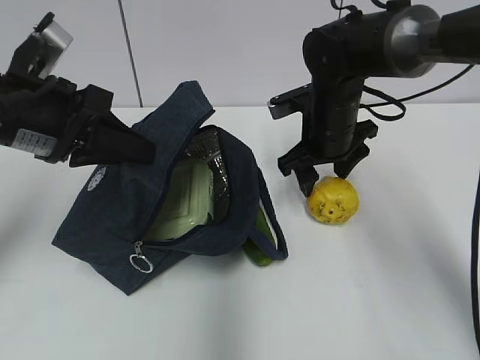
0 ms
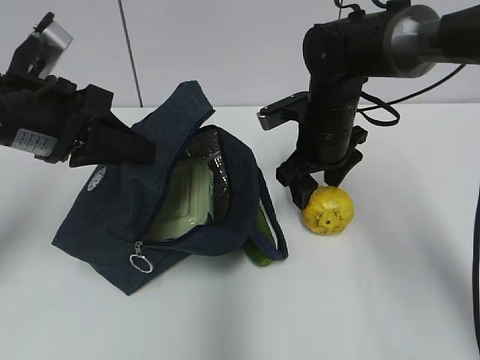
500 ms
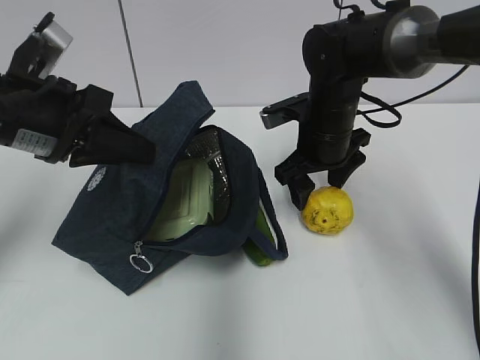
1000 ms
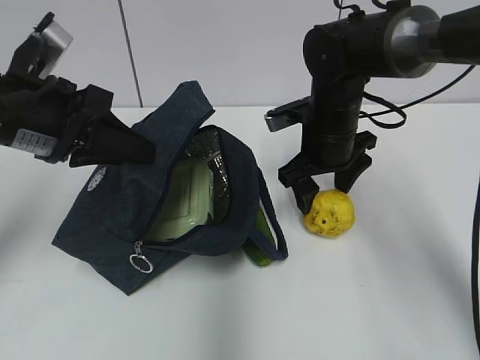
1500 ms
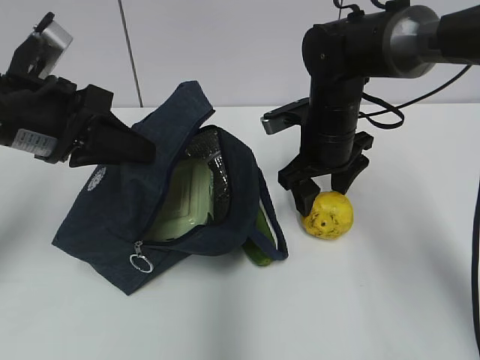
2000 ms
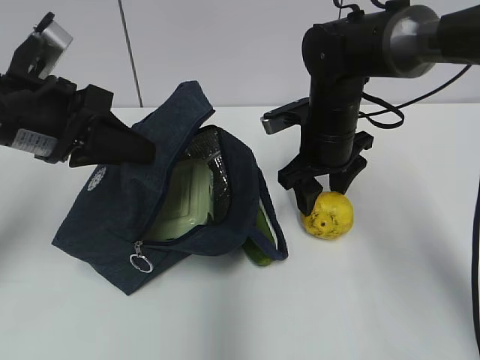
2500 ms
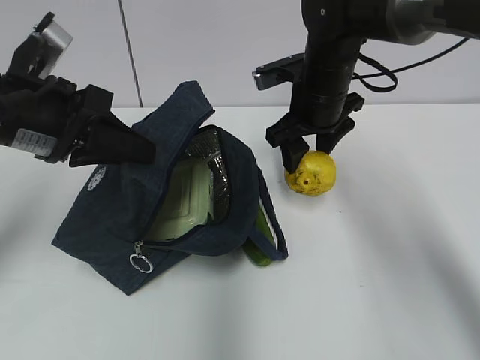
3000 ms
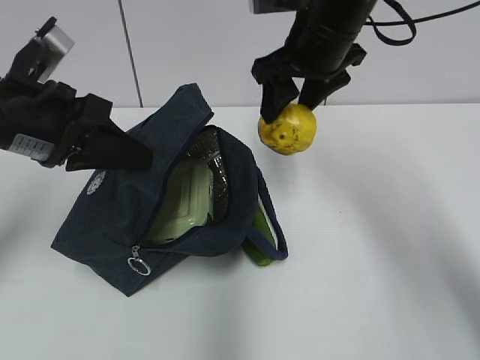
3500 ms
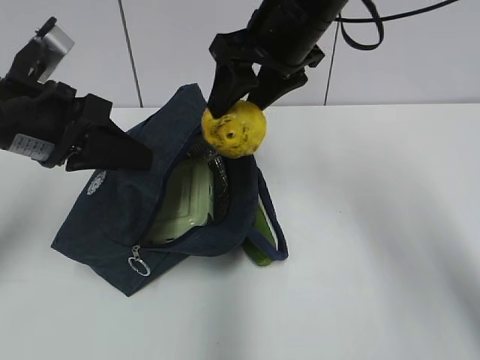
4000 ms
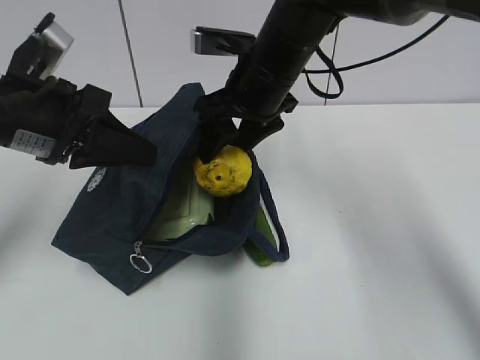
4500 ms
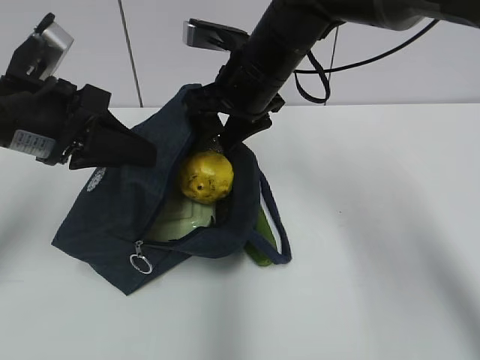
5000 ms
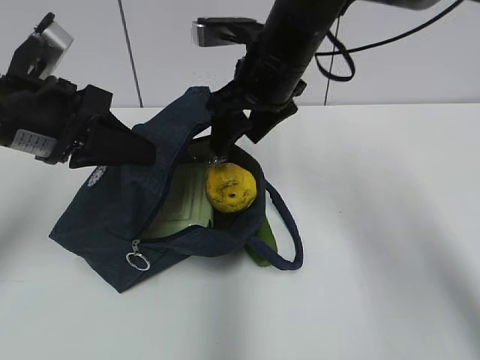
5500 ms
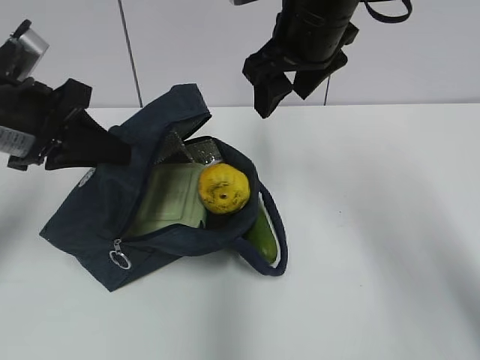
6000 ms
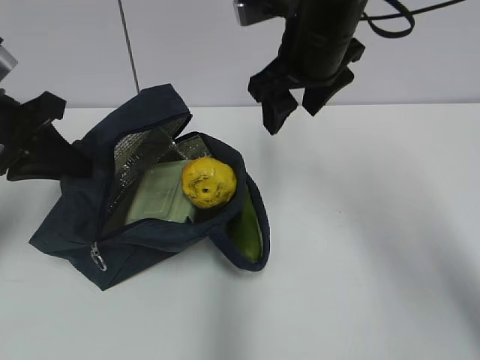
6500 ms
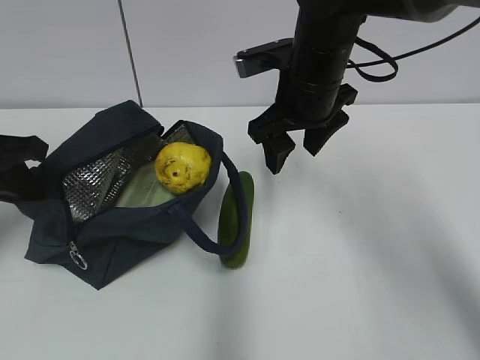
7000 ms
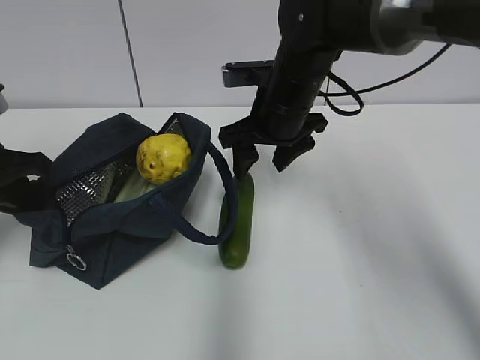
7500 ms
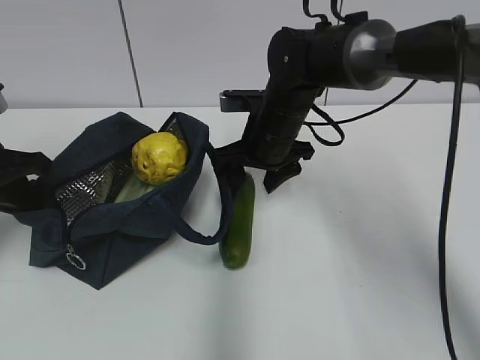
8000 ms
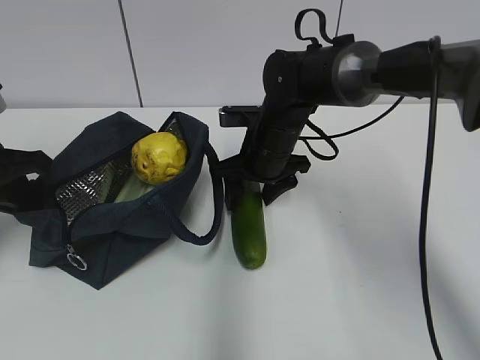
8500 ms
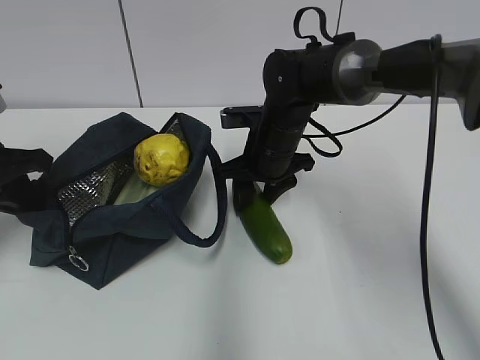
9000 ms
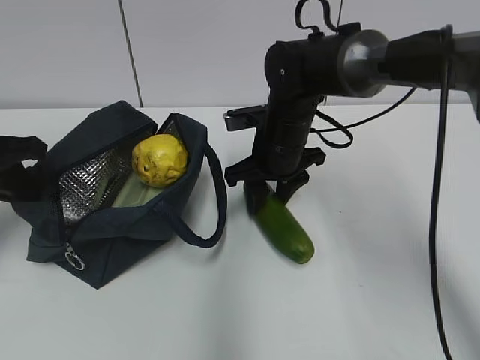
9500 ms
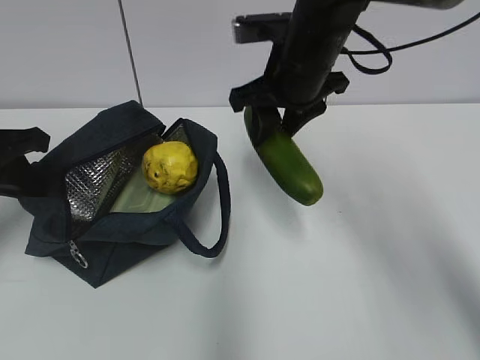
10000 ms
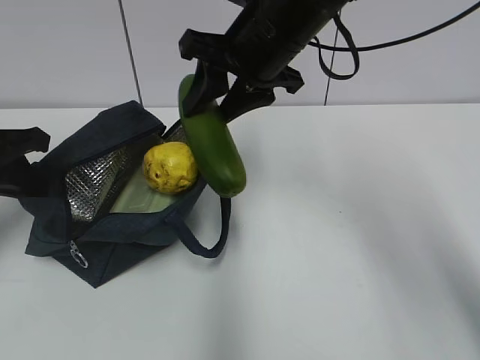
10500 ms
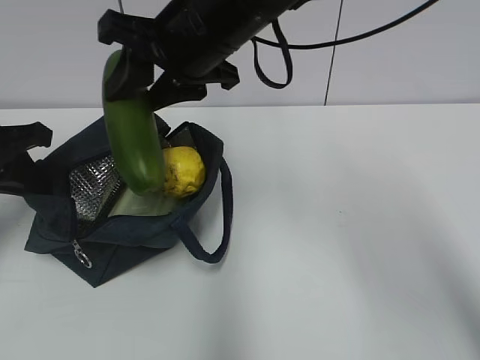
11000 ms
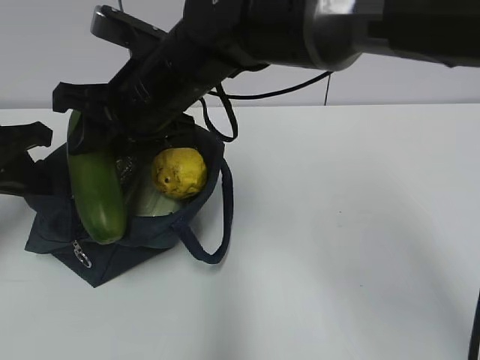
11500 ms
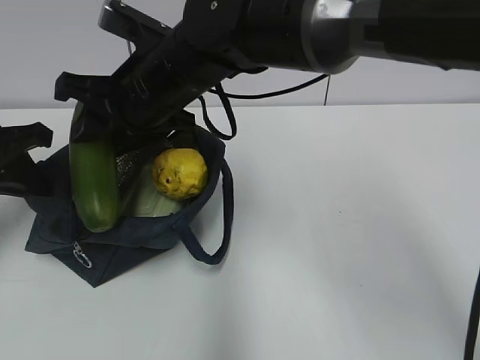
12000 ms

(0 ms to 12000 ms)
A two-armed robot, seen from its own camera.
Step, 0 ms - 2500 ms: Grab the pear with your right hand.
Step, 3000 ms - 5000 ms: Place it into the bag with your right hand.
Step, 5500 ms - 9000 ms: Grab the cucumber with your right hand.
0 ms - 2000 ms: There are only small adjustments of the grippers.
2000 ms - 4000 ms: The right gripper moves upward, roughly 15 cm.
6000 ms - 8000 ms: The right gripper travels downward by roughly 15 cm, while the left gripper shifts some 5 cm to the left.
8000 ms - 10000 ms: The right gripper heads upward, covering some 10 cm, and closes up.
10000 ms - 12000 ms: The right gripper goes roughly 15 cm to the left.

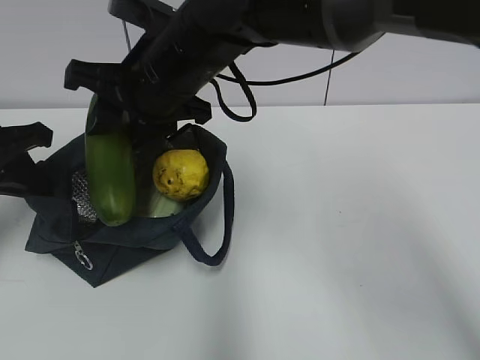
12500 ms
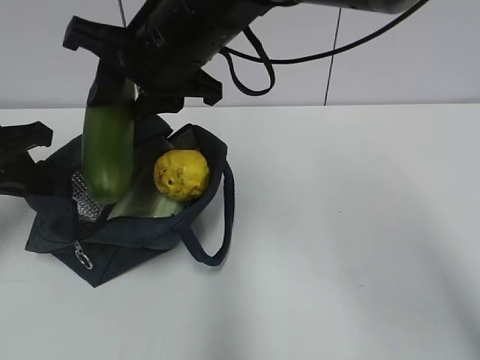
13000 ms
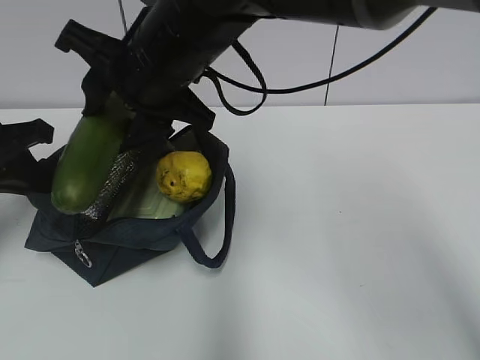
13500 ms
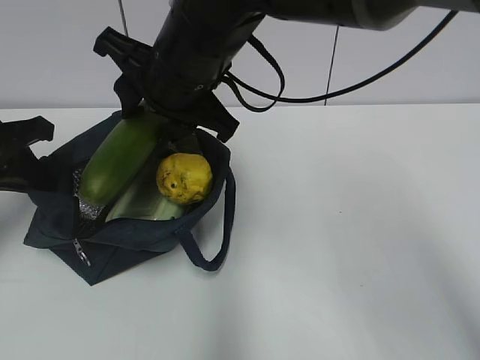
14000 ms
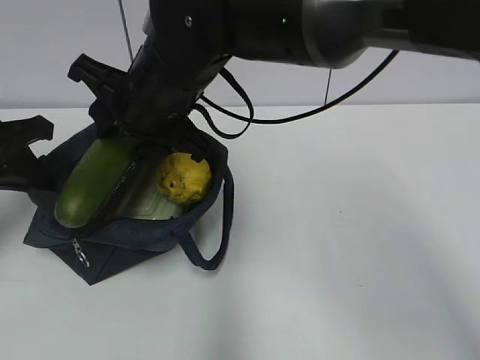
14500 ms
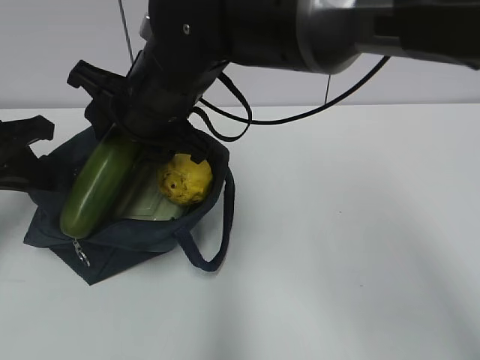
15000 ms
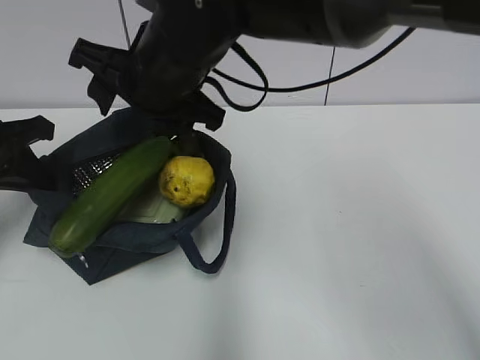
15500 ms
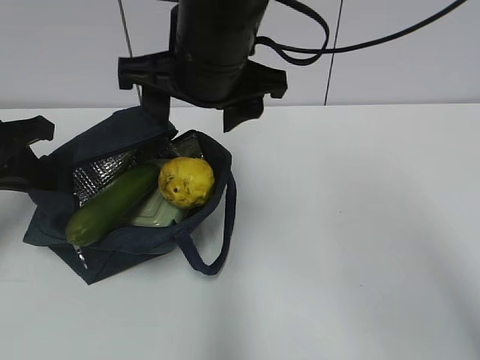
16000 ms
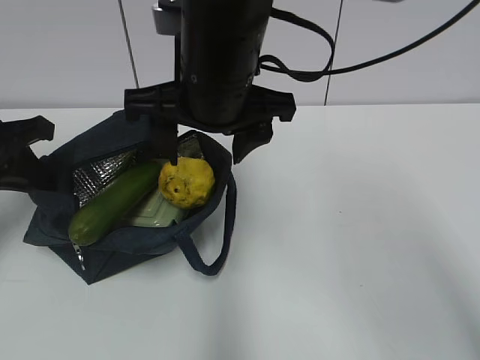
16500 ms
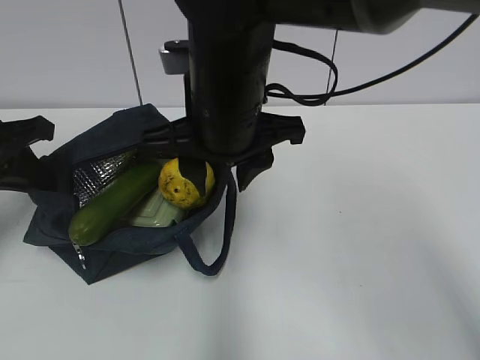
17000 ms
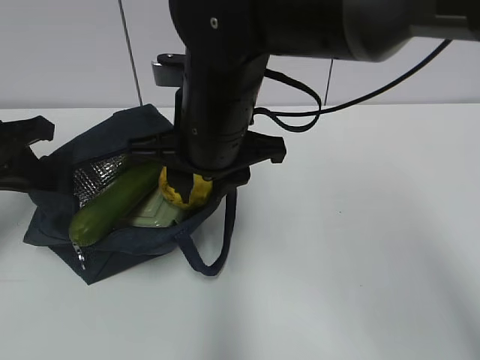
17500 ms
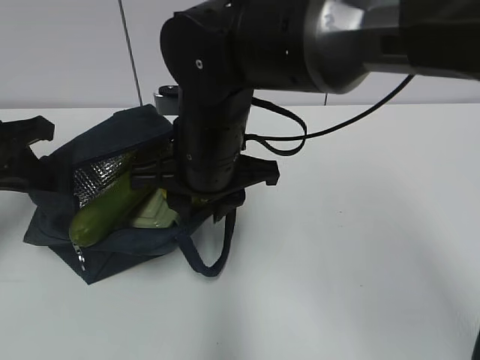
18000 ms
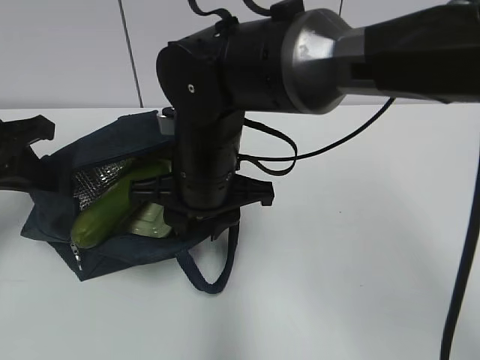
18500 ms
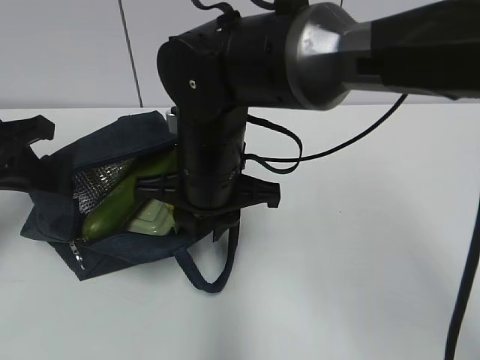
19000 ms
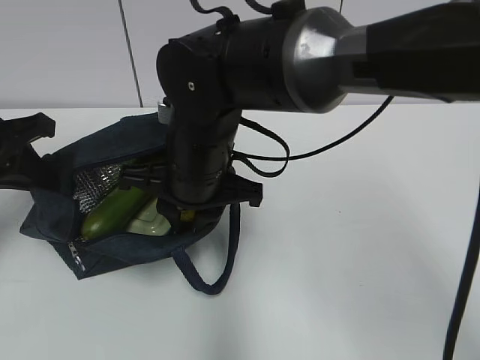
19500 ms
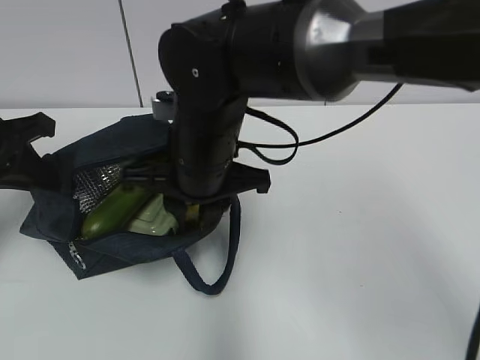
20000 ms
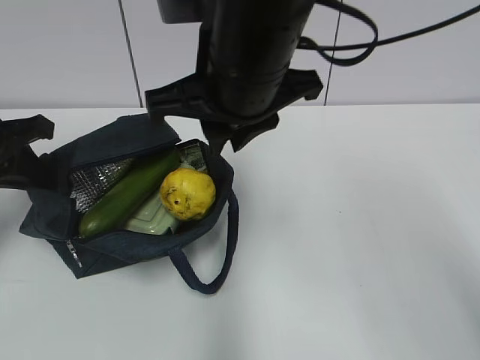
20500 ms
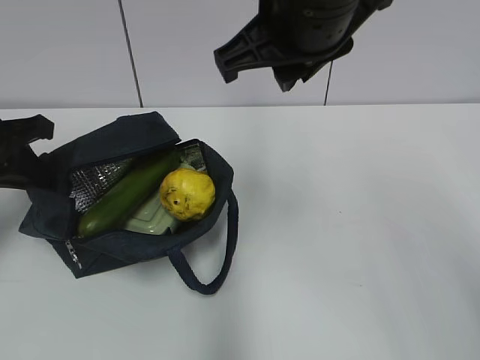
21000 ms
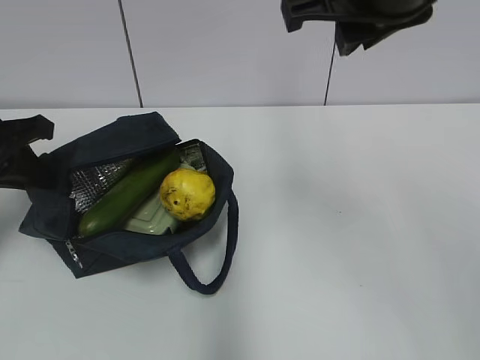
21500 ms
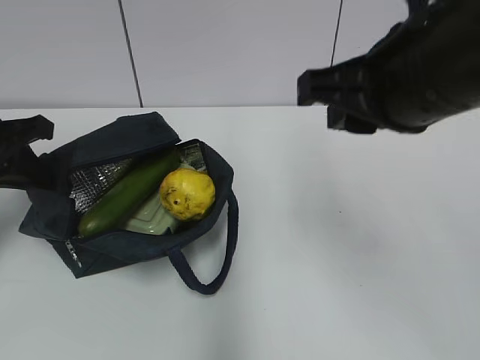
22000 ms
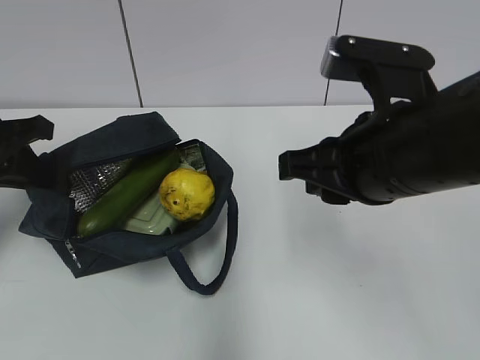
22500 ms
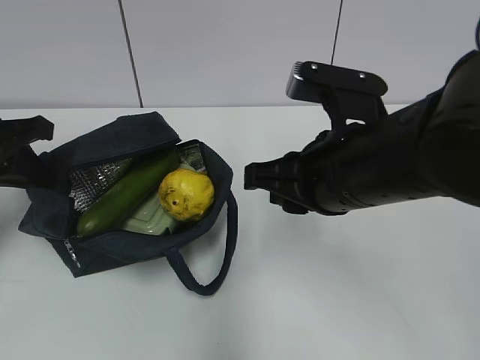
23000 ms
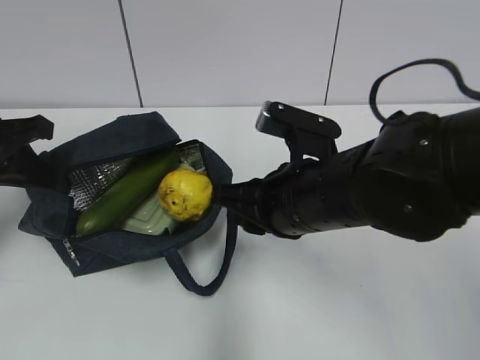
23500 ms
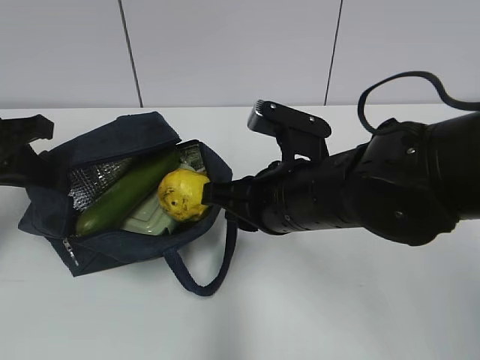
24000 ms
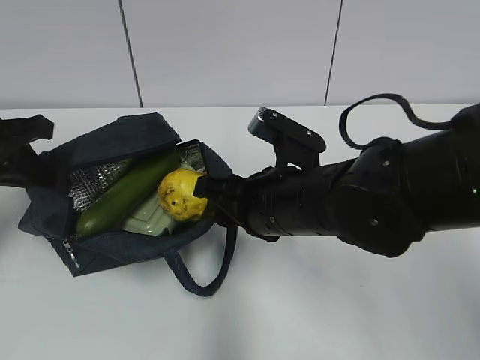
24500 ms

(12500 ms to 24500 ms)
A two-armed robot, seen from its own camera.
14500 ms - 16500 ms: The right gripper changes place by approximately 5 cm, and opens.
16500 ms - 18500 ms: The right gripper heads downward, covering about 10 cm, and closes its fingers.
18500 ms - 20500 ms: The right gripper is displaced upward by approximately 10 cm.
20500 ms - 22500 ms: The right gripper travels to the right, backward and downward by approximately 15 cm.
22500 ms - 24500 ms: The right gripper heads downward and to the left, covering roughly 10 cm.

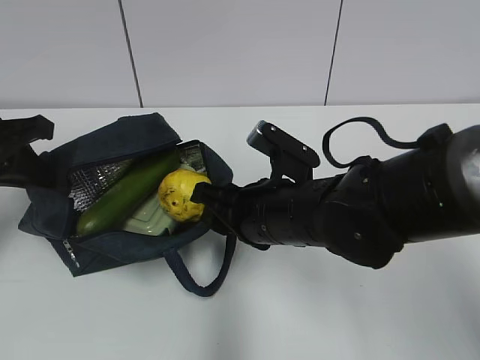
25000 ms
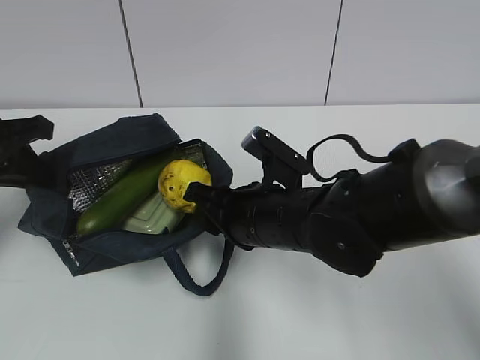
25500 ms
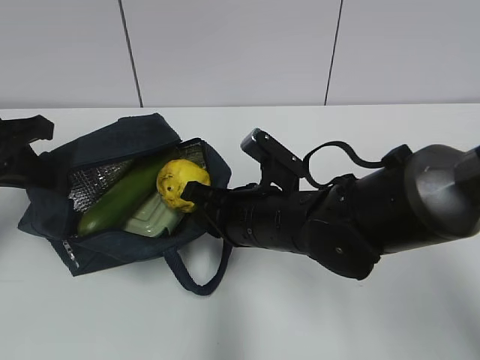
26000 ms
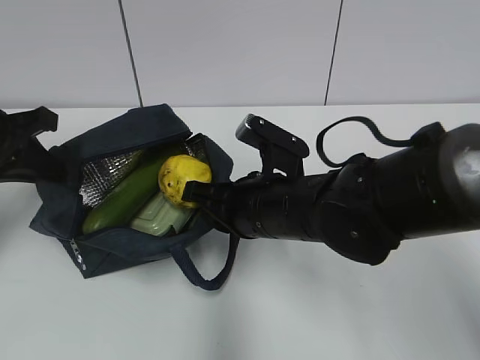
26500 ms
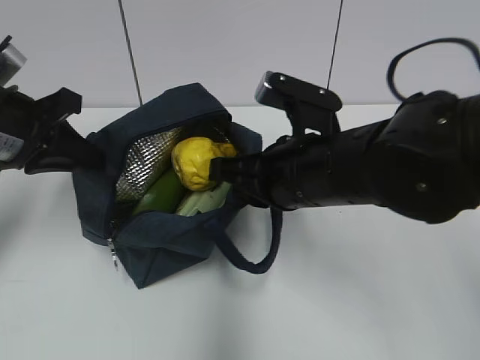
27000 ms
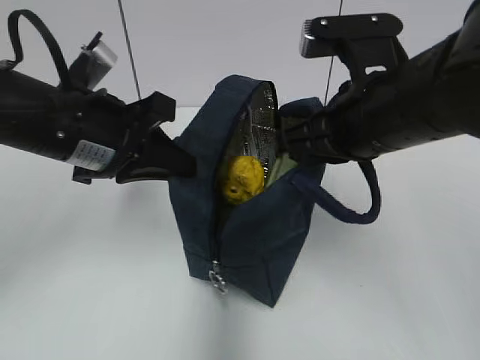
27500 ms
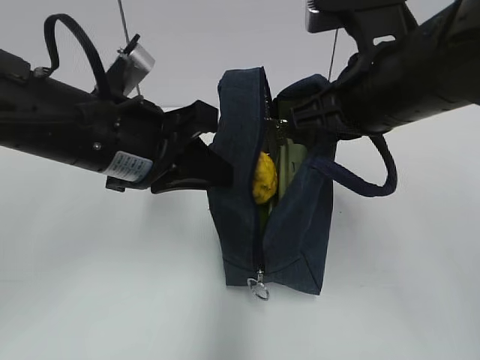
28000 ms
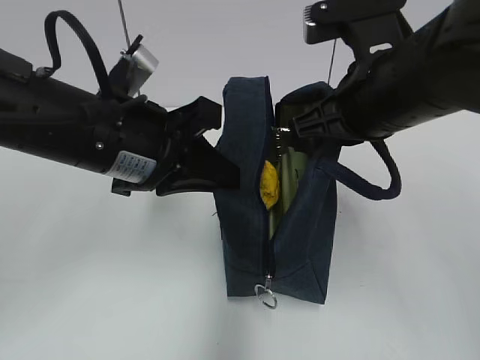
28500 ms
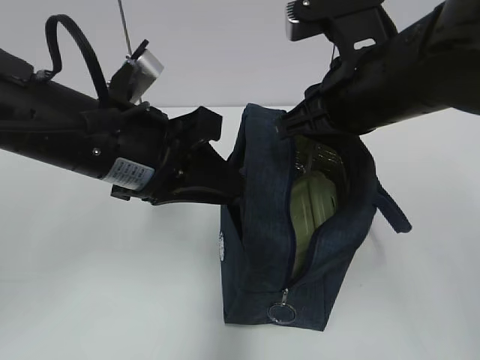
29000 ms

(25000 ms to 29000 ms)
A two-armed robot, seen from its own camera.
25000 ms - 27000 ms: The right gripper moves upward, roughly 5 cm, and closes.
27000 ms - 29000 ms: The right gripper goes about 5 cm upward. Meanwhile the left gripper goes approximately 15 cm to the right.
